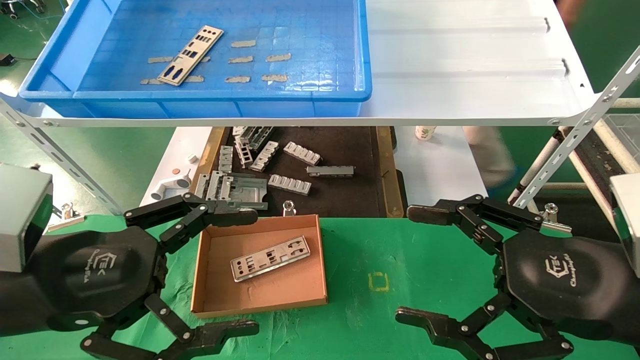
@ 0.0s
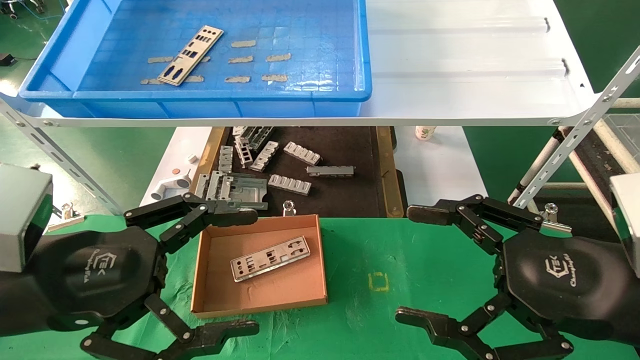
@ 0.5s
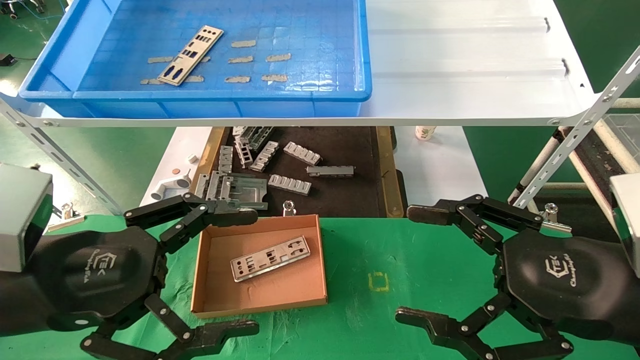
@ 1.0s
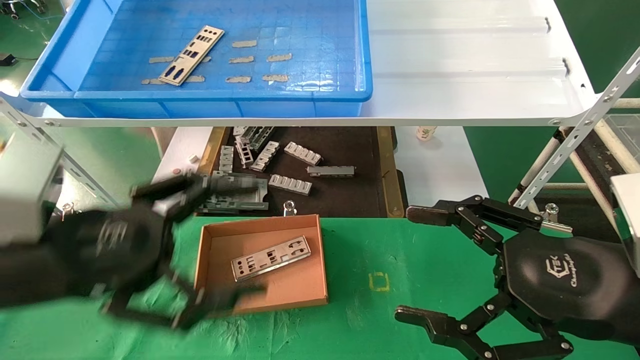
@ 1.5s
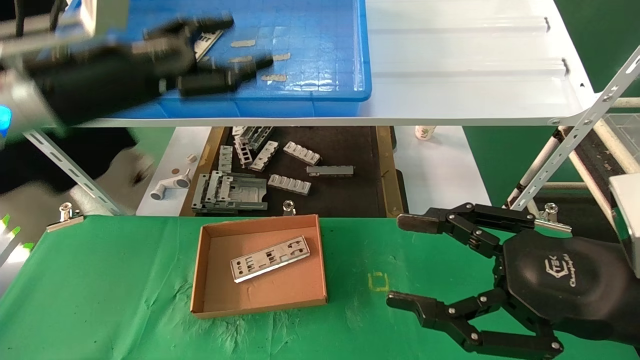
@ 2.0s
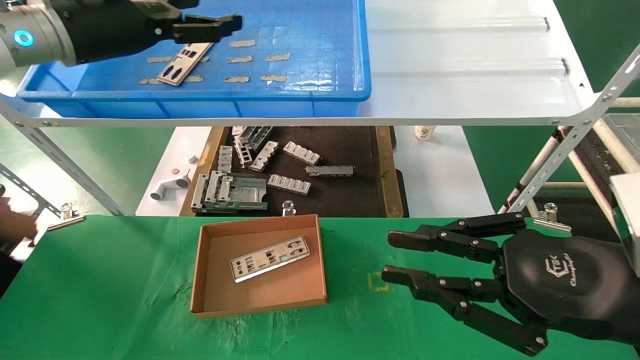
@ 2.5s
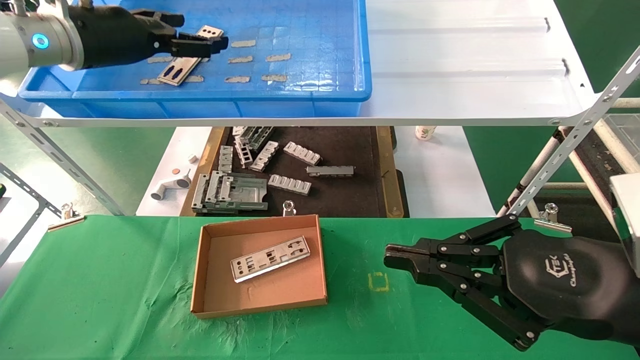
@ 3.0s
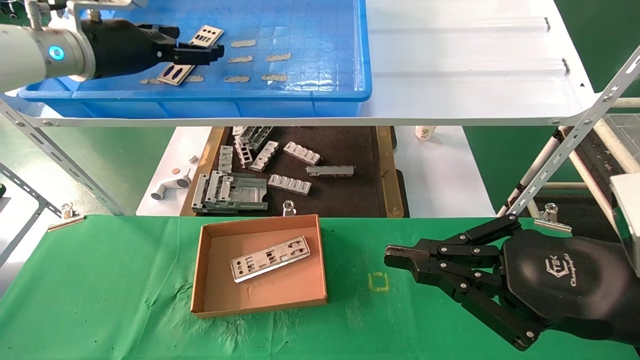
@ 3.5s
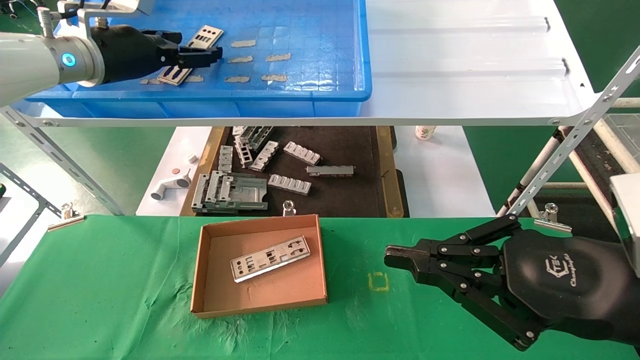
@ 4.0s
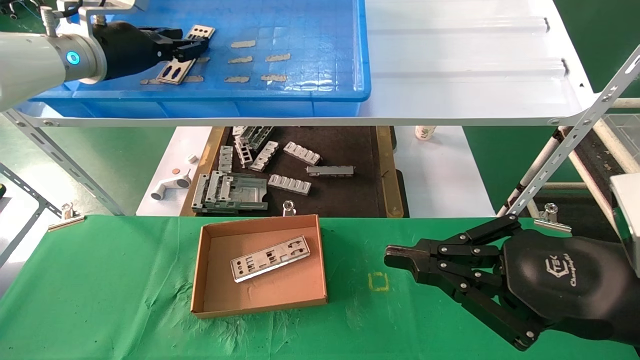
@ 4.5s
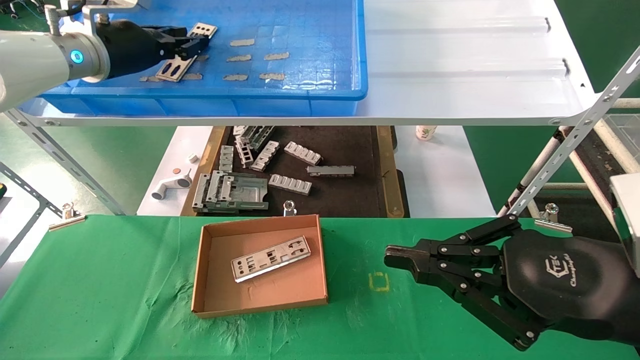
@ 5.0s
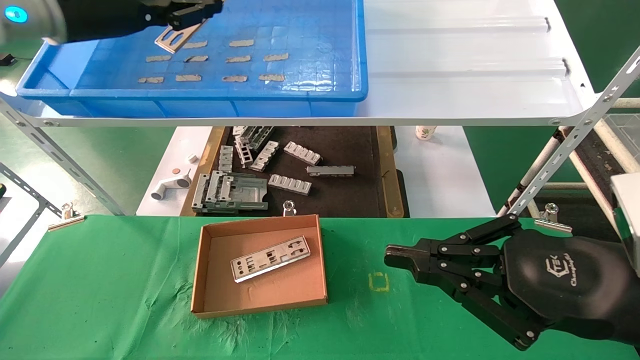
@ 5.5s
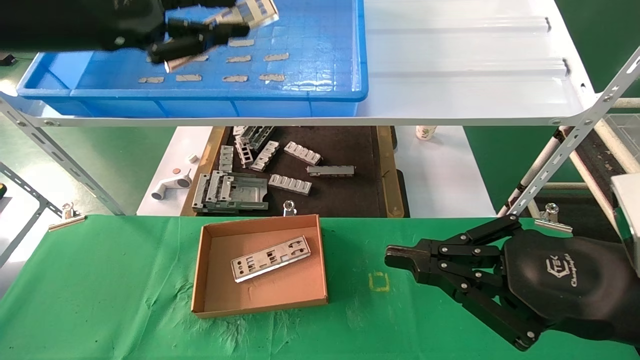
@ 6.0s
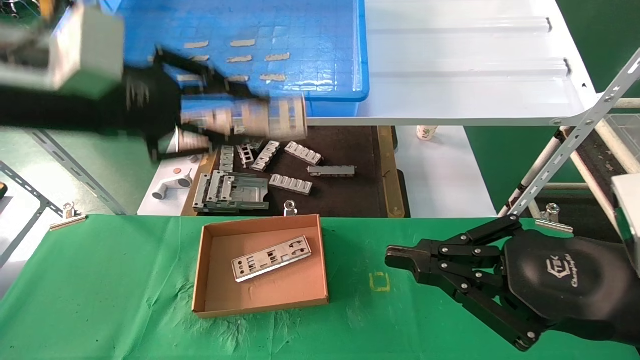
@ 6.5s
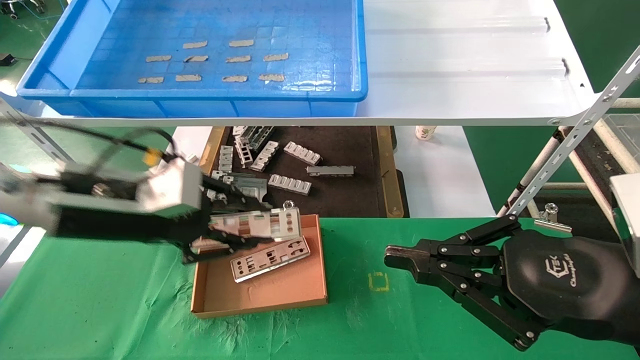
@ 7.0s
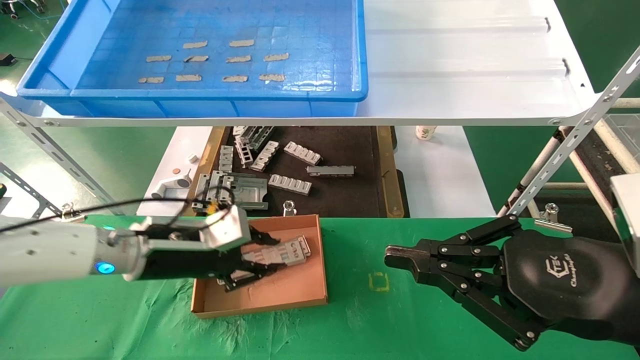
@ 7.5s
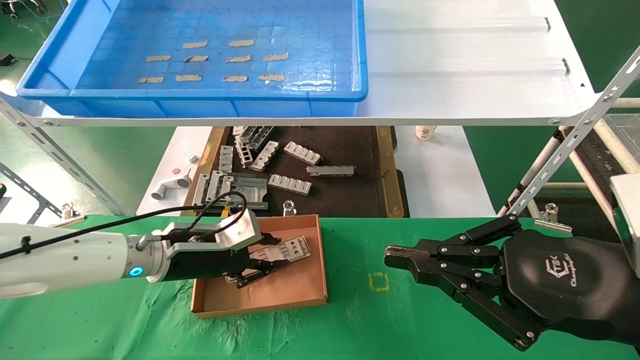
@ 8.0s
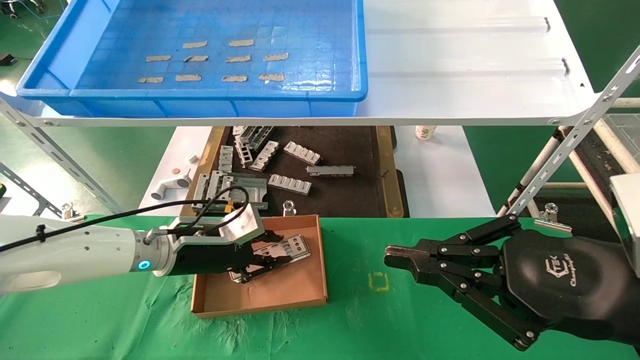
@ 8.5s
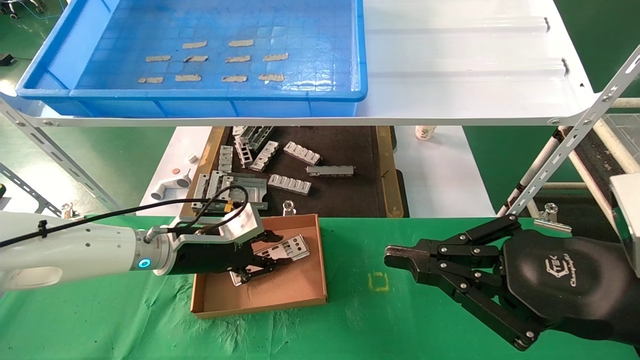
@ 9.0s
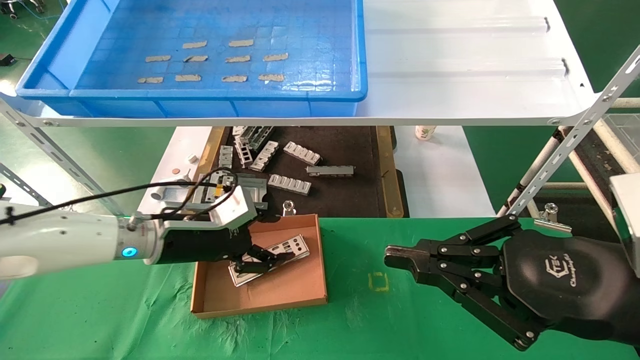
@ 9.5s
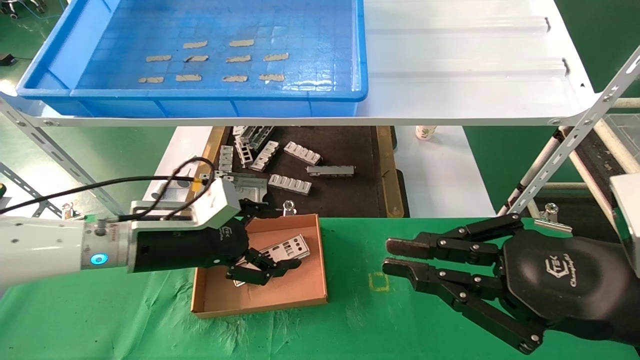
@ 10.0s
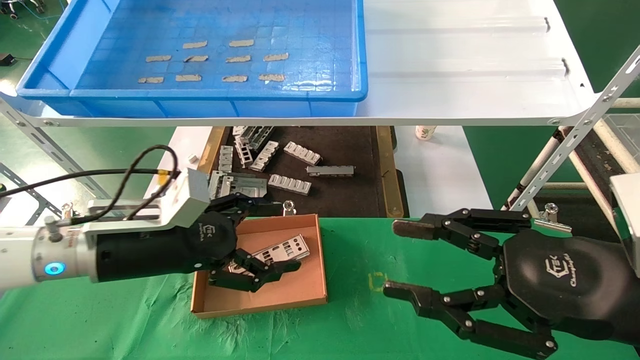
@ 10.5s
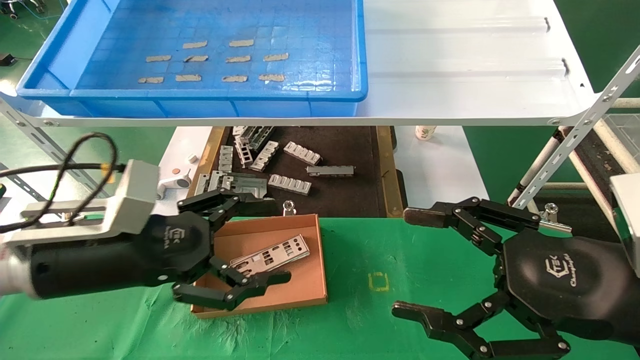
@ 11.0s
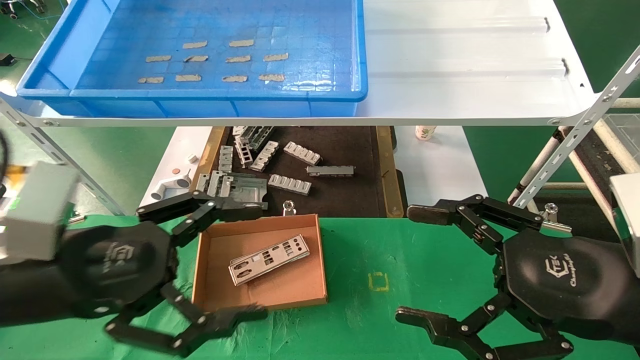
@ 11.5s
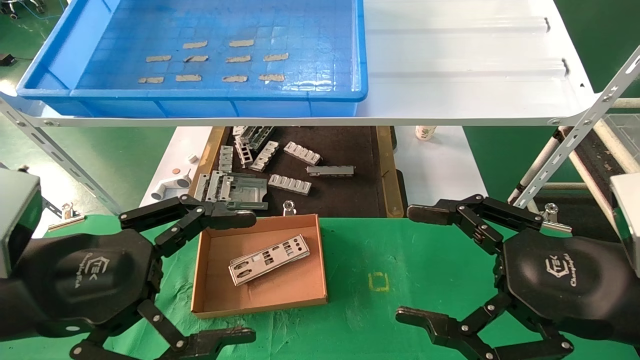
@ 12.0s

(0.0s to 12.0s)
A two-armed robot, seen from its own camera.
Task of the whole recording: pick up the parts on the tray and put them in the cardboard box.
Step, 2.0s - 5.0s: Pick up the IO bracket from the container box.
Step, 5.5s - 9.0s: Place the IO bracket into the ingredient slot.
0.0s - 2.0s: The left gripper heads forward and upward, covering approximately 20 cm.
2.0s - 4.0s: The right gripper closes. The left gripper goes approximately 10 cm forward.
4.0s - 6.0s: The left gripper is displaced backward by about 15 cm, and closes its fingers.
6.0s - 8.0s: The left gripper shifts approximately 30 cm downward.
8.0s - 10.0s: The left gripper opens its fingers.
10.0s - 12.0s: The left gripper moves backward, about 15 cm; the right gripper opens.

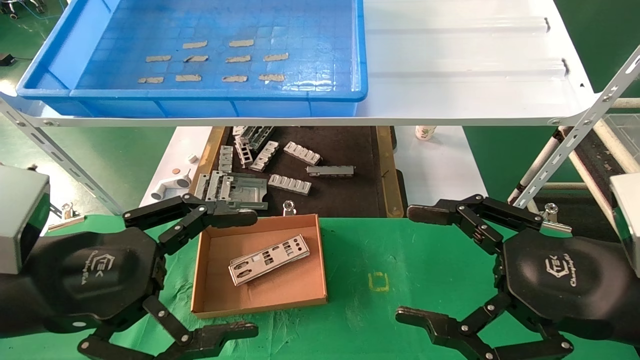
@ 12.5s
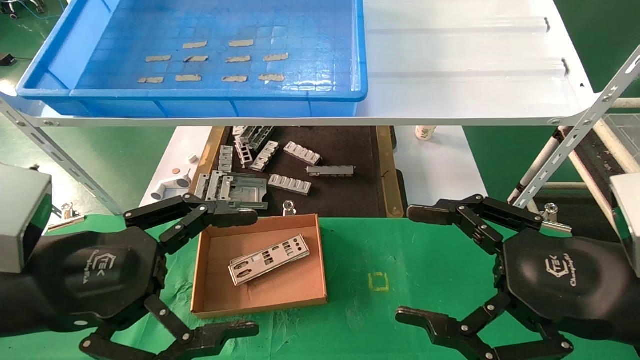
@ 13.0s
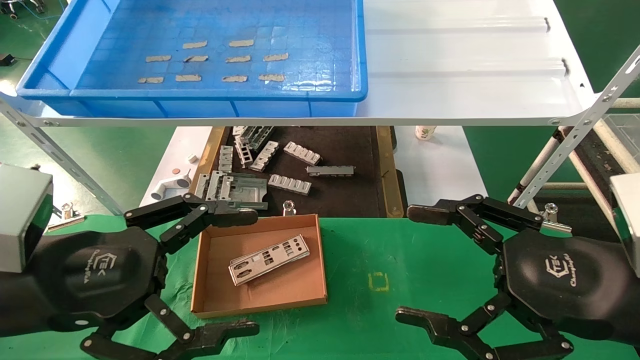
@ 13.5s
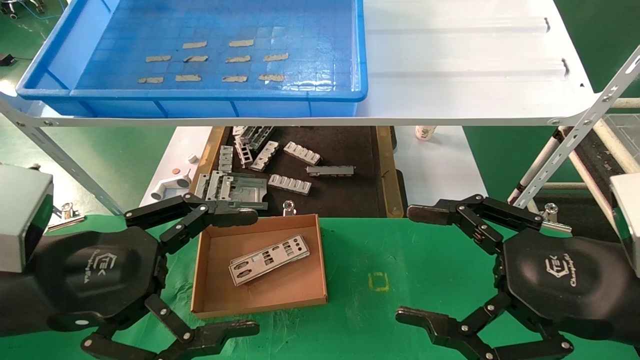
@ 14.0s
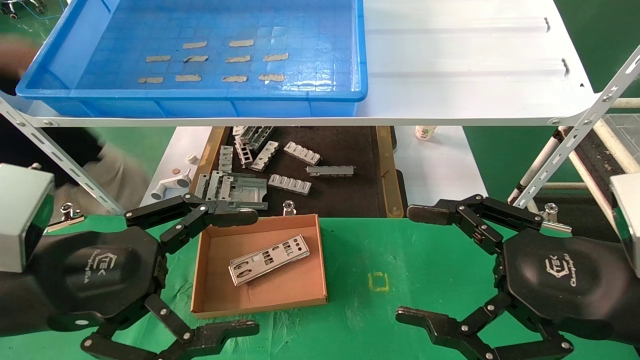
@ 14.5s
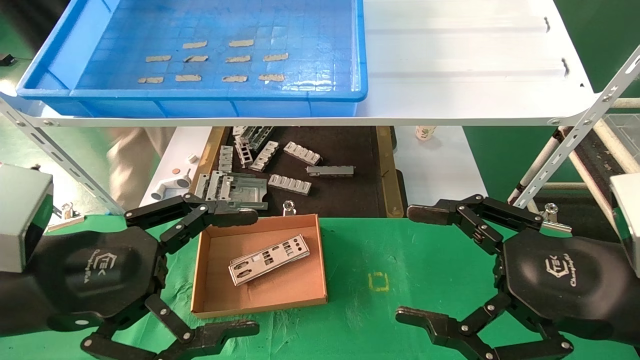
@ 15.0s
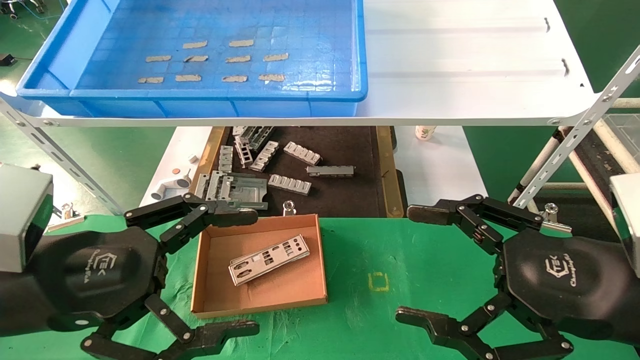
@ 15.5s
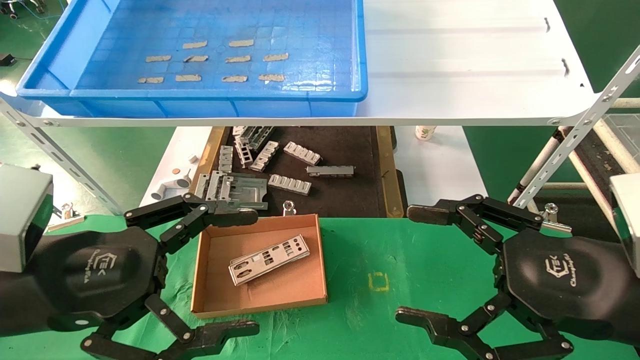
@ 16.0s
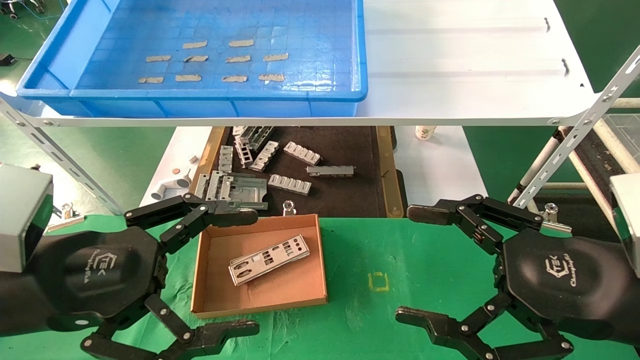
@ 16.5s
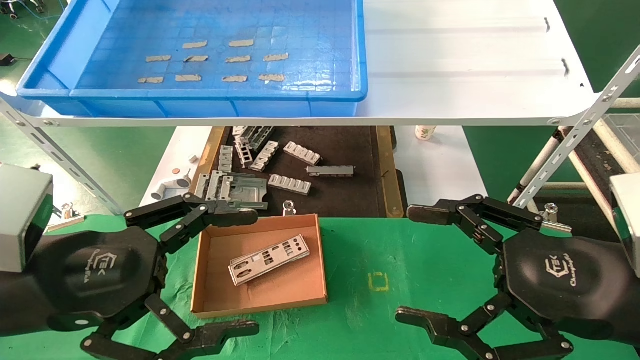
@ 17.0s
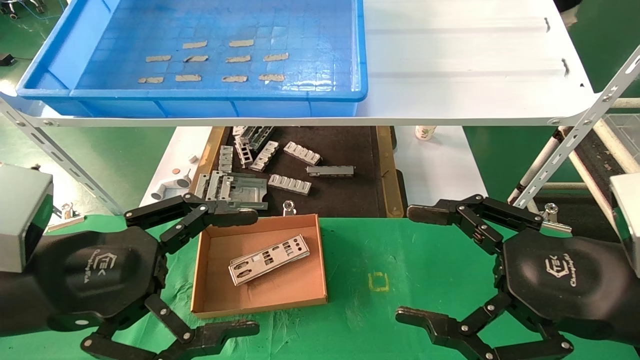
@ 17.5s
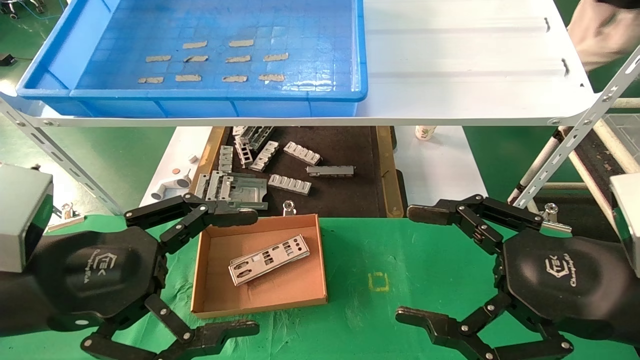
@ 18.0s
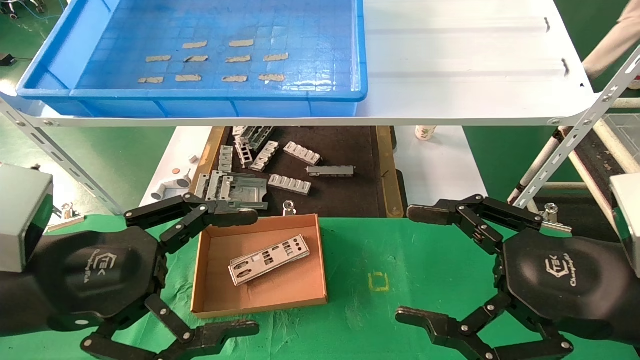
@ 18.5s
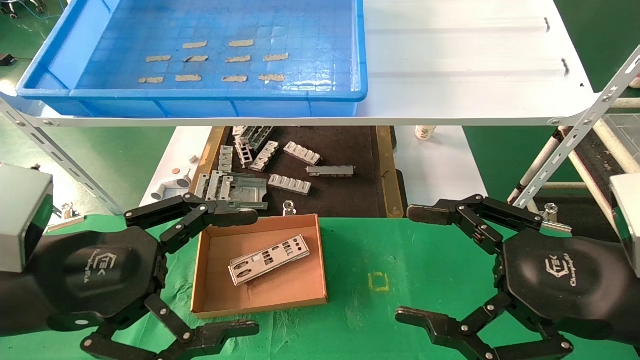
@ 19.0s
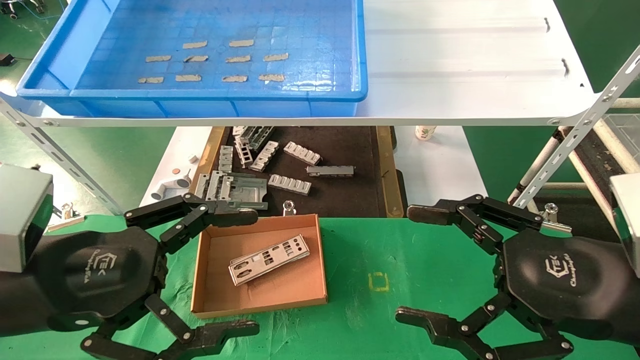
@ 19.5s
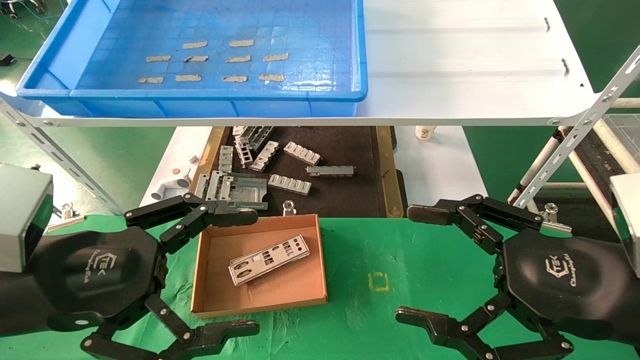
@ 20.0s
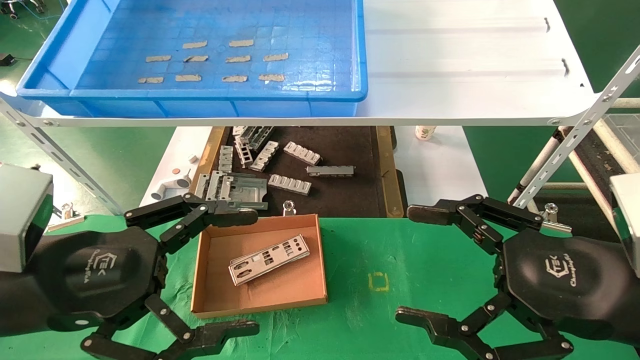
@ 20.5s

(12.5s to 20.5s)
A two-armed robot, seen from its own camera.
Task of the whole recording: pick up the parts on the tray and put them in the cardboard box.
12.5s - 20.5s: The two grippers keep their place.
